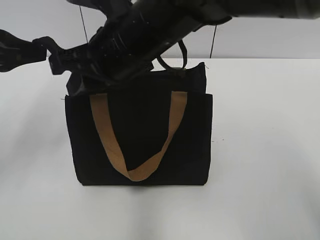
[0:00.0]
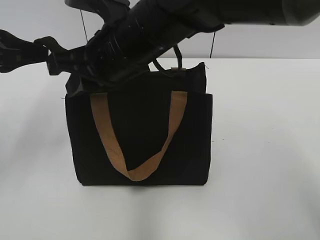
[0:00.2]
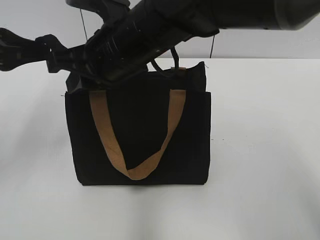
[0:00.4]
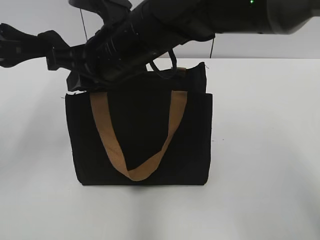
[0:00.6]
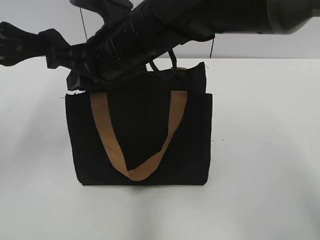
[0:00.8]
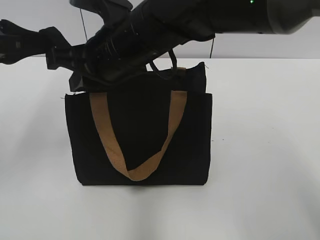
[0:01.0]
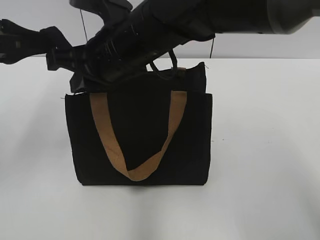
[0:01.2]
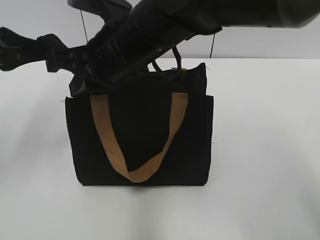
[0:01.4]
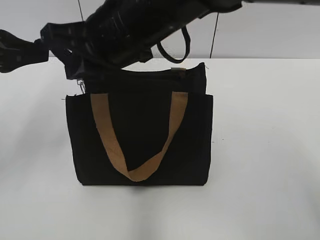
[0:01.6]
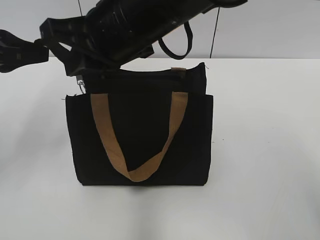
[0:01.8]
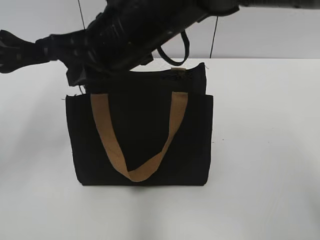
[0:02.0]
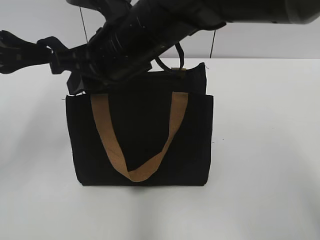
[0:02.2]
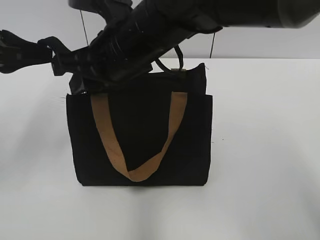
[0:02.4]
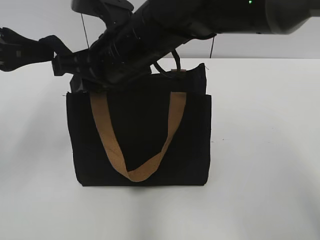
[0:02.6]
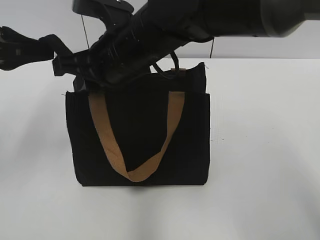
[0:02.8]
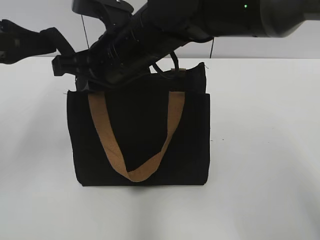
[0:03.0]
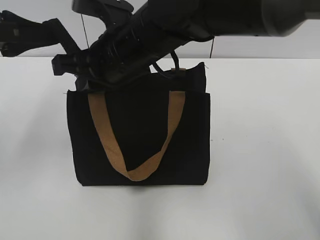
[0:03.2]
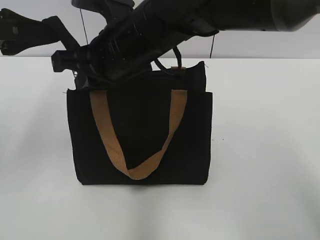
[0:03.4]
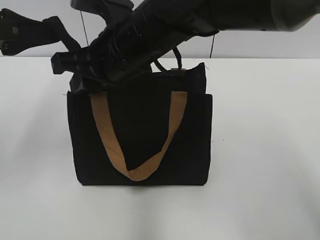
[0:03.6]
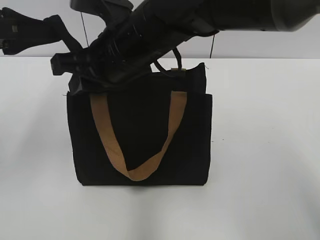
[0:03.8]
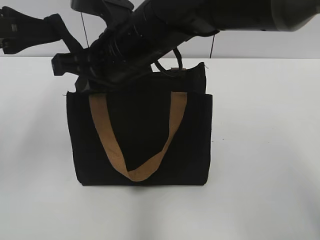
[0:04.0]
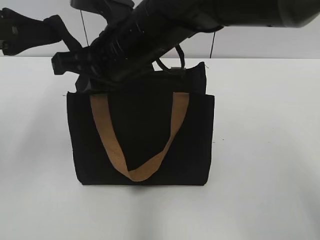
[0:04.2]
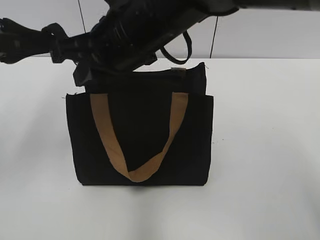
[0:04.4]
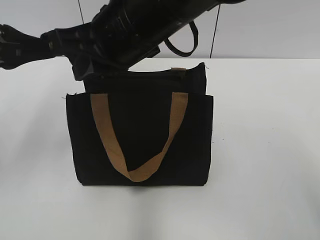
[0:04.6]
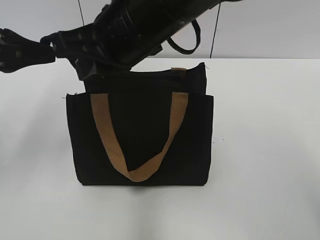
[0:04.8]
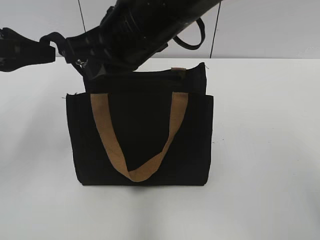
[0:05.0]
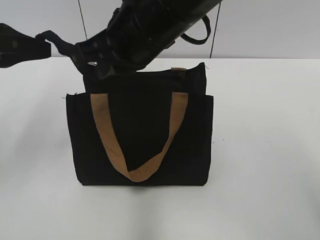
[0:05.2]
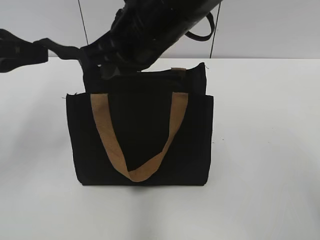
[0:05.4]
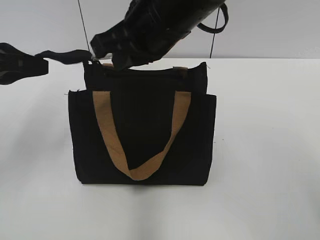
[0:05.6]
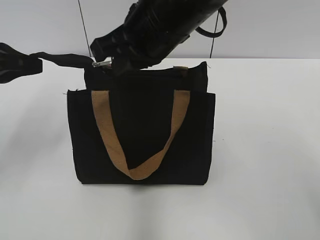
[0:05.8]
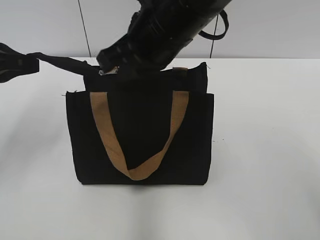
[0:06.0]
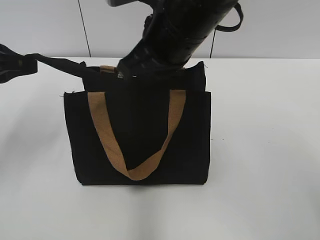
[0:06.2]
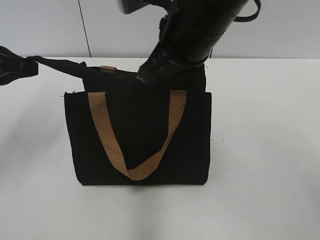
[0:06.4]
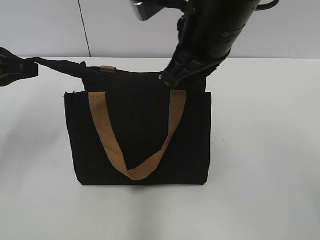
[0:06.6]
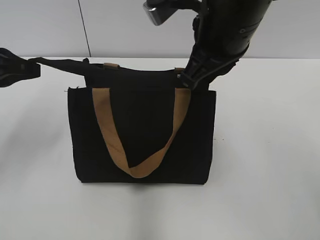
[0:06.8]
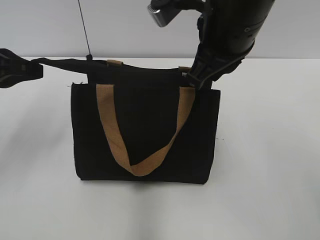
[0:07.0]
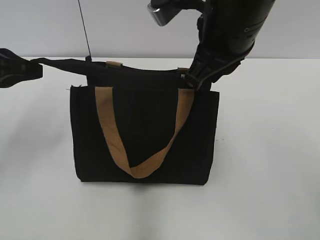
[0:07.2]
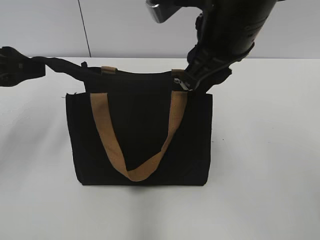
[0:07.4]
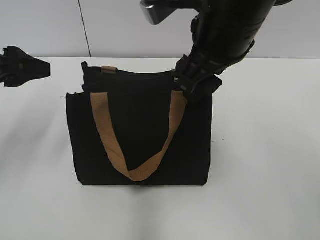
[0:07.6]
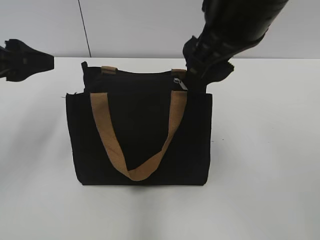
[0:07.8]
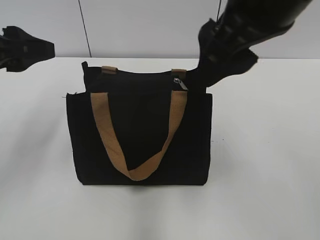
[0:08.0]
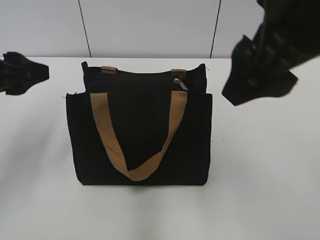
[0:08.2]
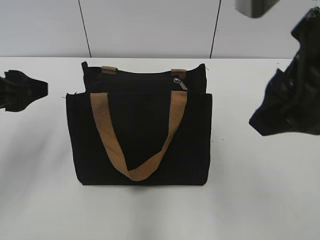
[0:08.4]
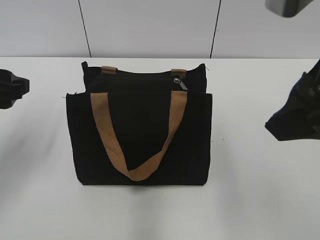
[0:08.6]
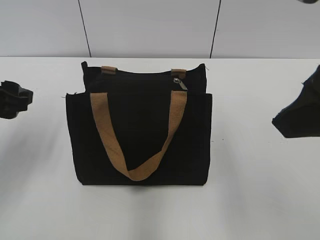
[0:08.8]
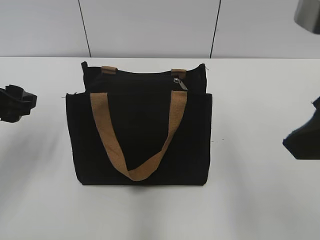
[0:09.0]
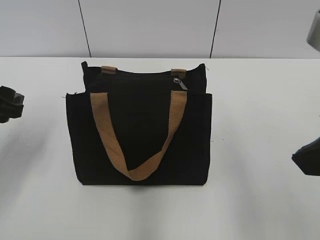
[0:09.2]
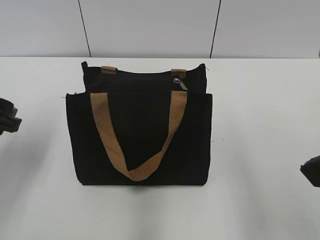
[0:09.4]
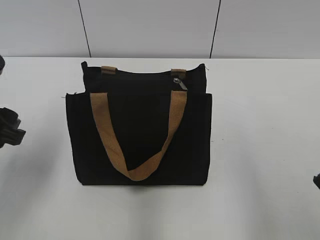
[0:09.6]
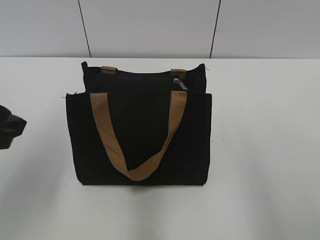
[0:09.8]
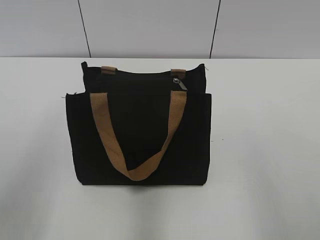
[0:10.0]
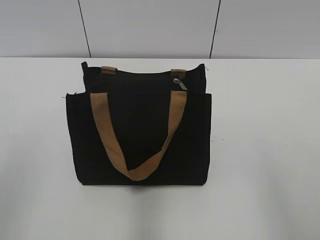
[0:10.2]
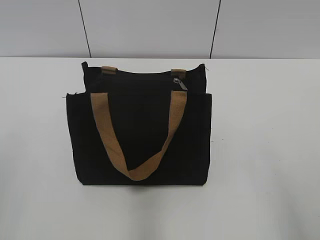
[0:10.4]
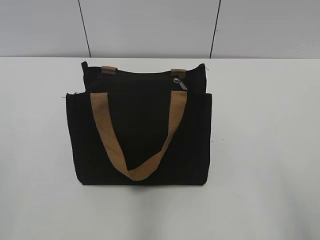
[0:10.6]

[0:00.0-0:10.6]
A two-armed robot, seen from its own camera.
Step, 0:00.0 to 0:07.2: Zip up the bag with your right hand.
0:00.0 to 0:01.6: The right gripper closes.
0:01.6 to 0:03.0: The right gripper opens and closes again.
0:03.0 to 0:04.6: The right gripper is displaced upward by approximately 5 cm, and opens, then closes once more.
0:04.6 to 0:06.0: The grippers make only small movements.
0:06.0 to 0:07.6: The right gripper travels to the right by roughly 5 cm, and opens. Meanwhile the left gripper opens.
0:07.6 to 0:09.0: The right gripper goes some 15 cm backward and to the right.
0:09.0 to 0:10.6: The right gripper goes roughly 15 cm backward, to the right and downward, while the left gripper shifts roughly 20 cm backward.
